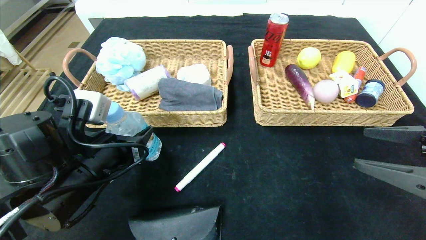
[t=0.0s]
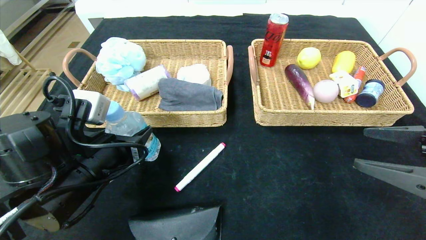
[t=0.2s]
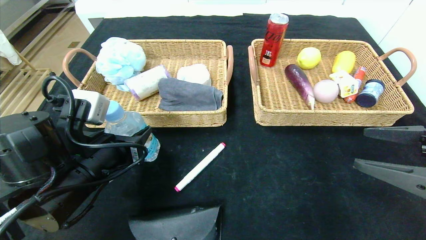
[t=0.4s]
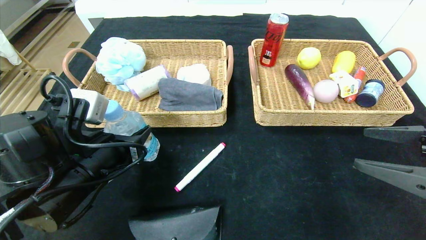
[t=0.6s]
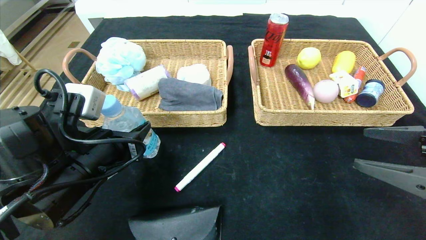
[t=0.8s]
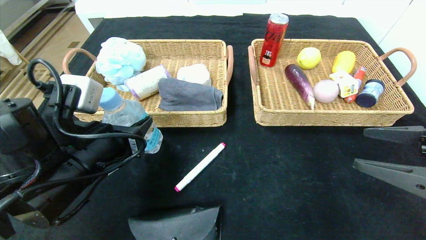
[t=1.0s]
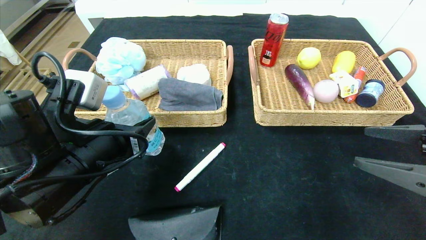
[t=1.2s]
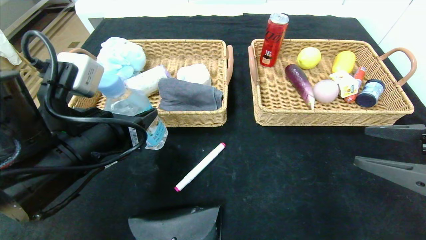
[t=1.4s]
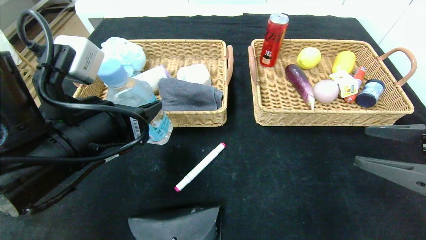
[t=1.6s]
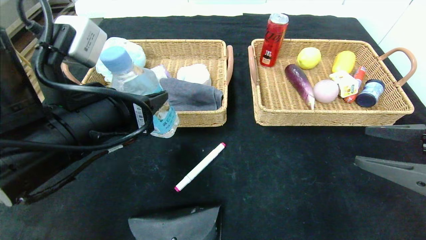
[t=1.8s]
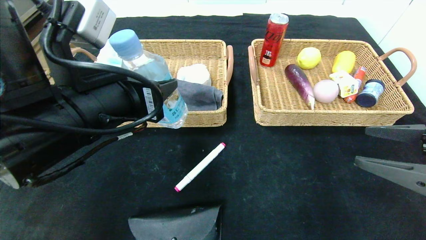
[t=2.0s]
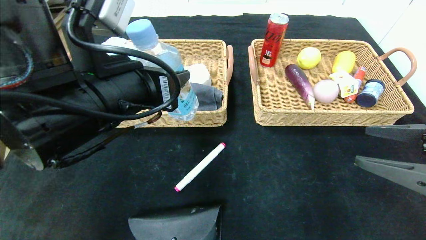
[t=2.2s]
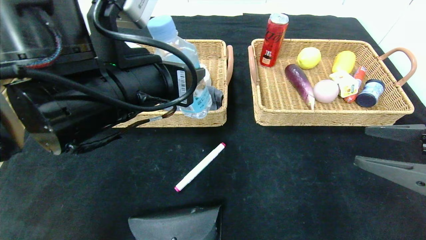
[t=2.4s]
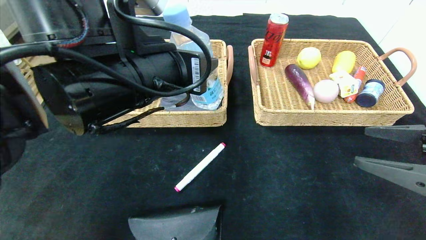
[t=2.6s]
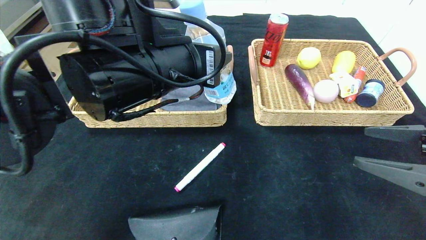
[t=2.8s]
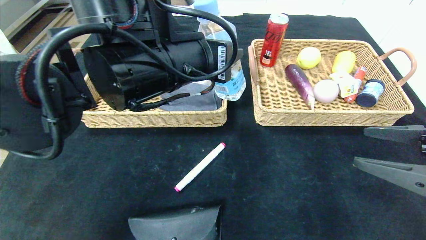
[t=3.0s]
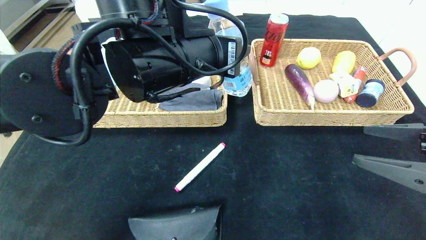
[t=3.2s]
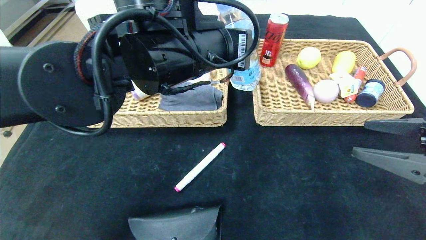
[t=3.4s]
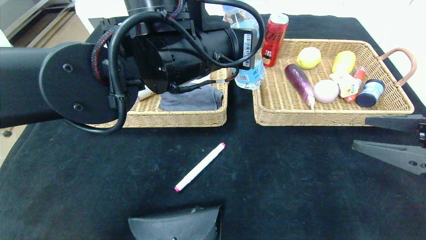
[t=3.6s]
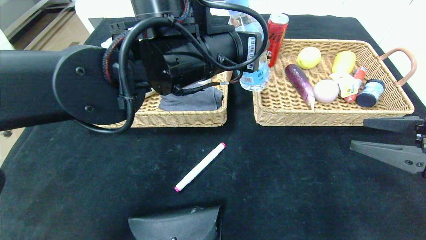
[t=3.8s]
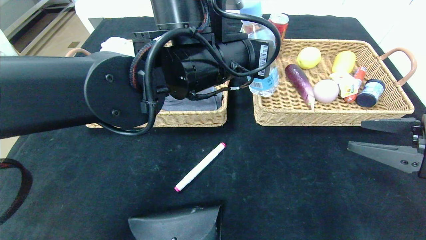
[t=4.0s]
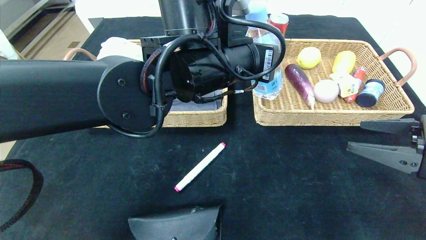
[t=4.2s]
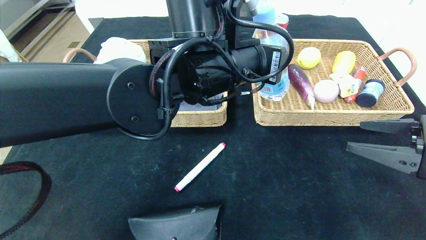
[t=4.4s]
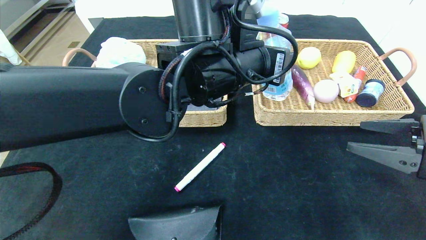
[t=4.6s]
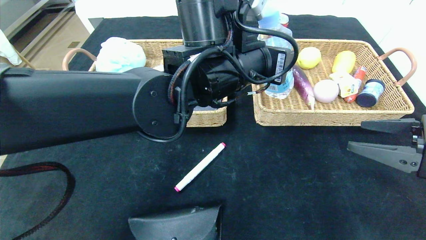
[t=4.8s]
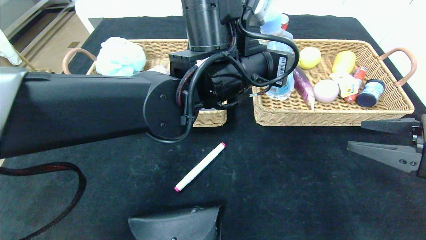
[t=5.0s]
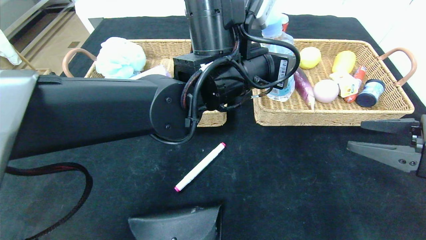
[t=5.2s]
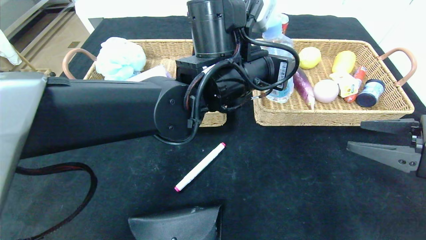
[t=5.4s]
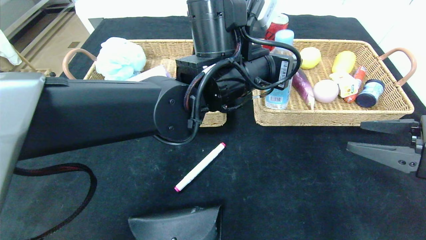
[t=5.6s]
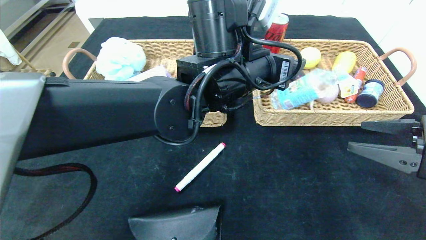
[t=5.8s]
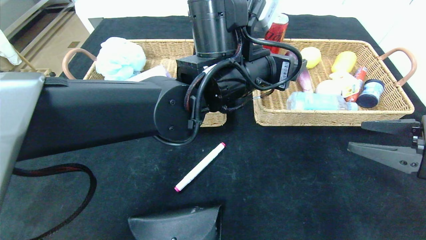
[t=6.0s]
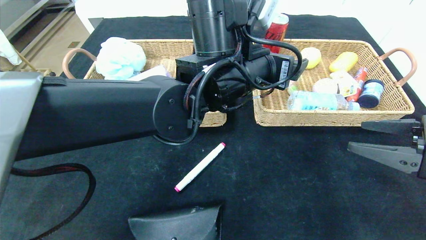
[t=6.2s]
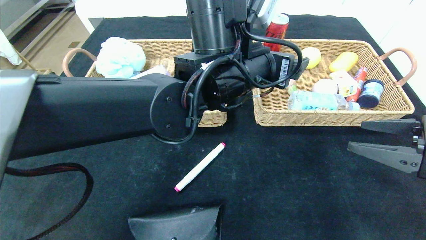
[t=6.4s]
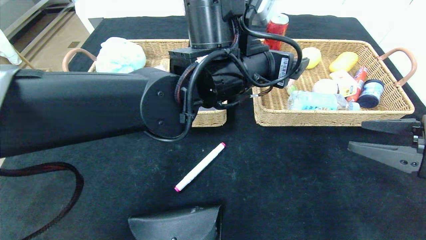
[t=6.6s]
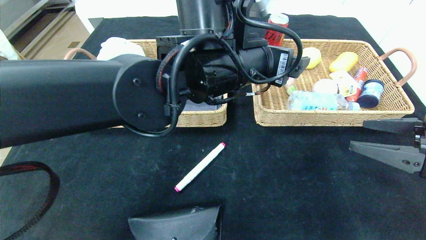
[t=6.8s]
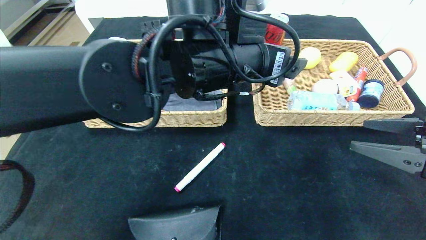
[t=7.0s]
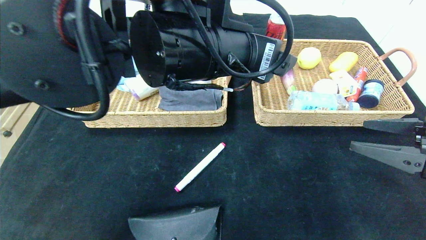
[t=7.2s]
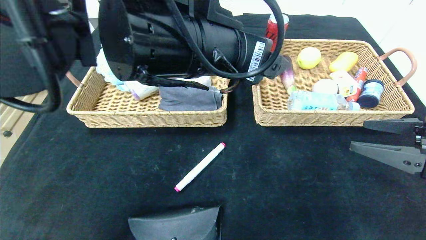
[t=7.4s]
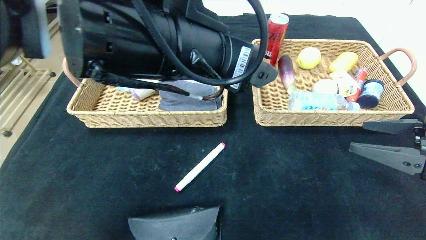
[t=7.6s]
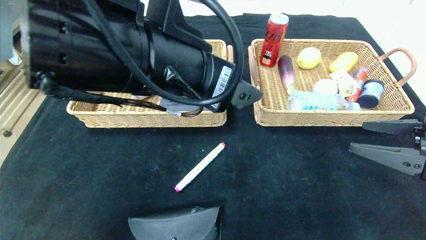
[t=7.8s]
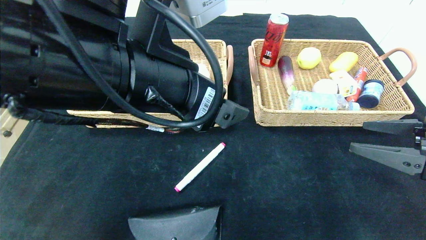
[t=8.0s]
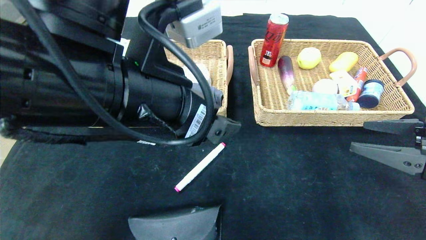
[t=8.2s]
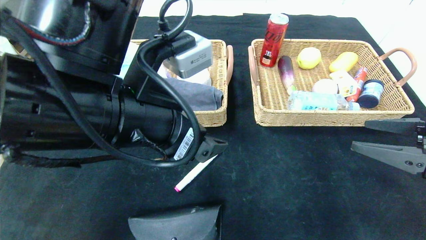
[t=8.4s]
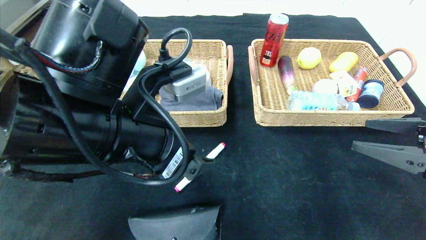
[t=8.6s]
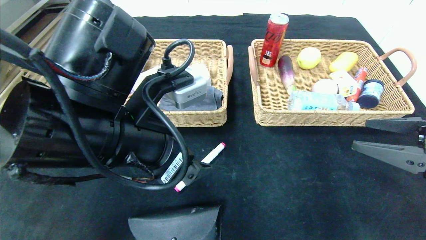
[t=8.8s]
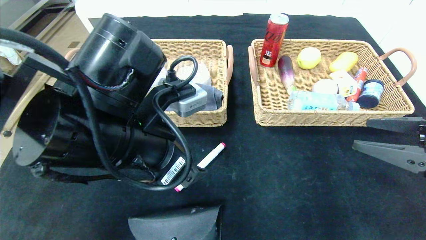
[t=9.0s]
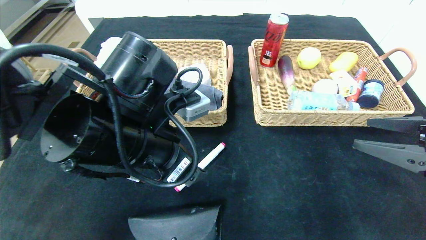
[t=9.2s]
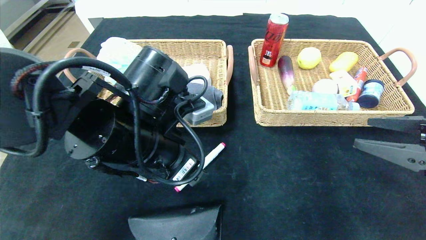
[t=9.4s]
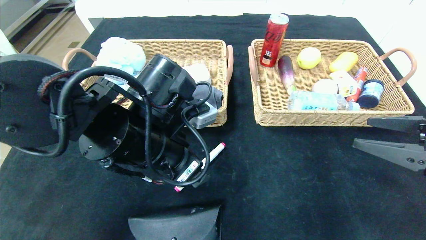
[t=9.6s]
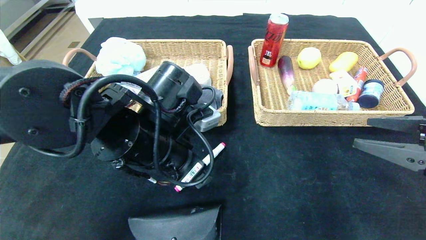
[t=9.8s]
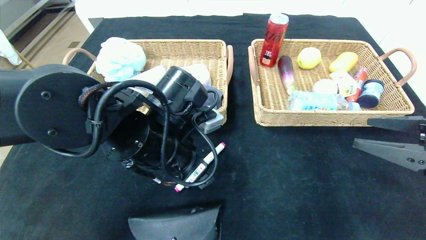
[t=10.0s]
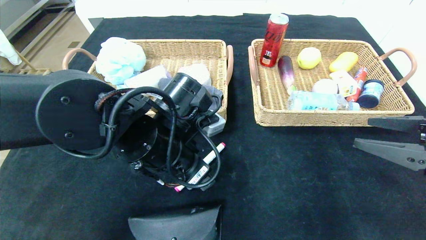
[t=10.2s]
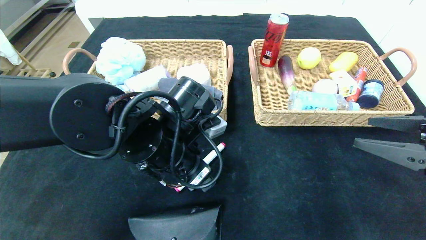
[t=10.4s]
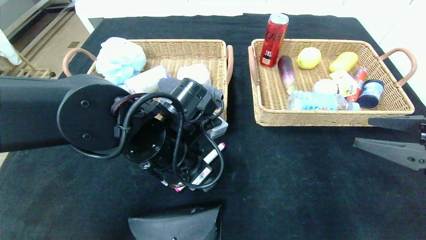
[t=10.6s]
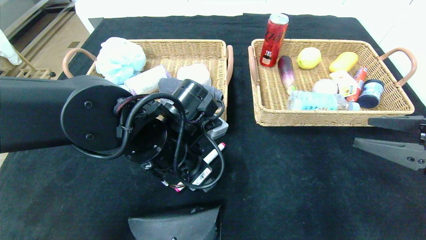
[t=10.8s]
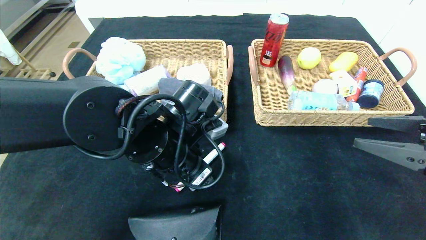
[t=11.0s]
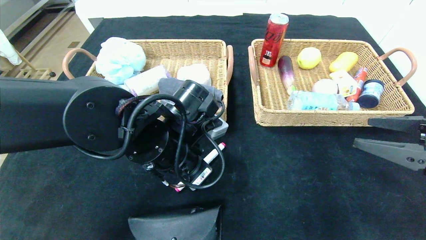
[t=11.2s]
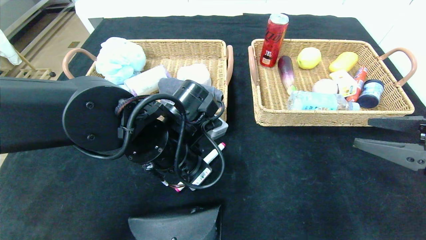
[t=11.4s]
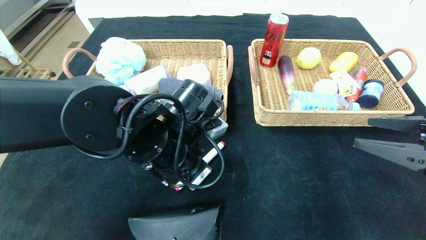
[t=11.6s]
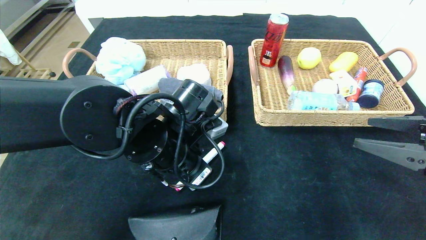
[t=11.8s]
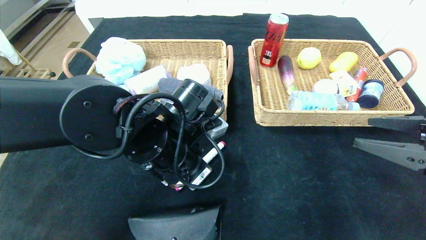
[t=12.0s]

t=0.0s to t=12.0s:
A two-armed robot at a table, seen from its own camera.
t=0.0s to t=1.6s: The left gripper moves upward, about 5 cm.
t=1.6s to t=3.0s: The left gripper shifts some 15 cm to the right, upward and forward.
t=3.0s to t=4.4s: The left gripper heads to the right, covering about 5 cm.
t=4.4s to t=6.0s: The left gripper opens.
t=6.0s to t=7.6s: The left gripper travels backward, to the left and upward by roughly 10 cm.
t=7.6s to t=9.0s: The left gripper heads downward and to the left, covering about 10 cm.
t=9.0s to t=10.4s: The left gripper goes some 5 cm downward.
t=10.4s to t=12.0s: The left gripper closes its fingers.

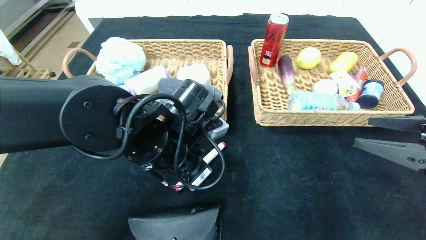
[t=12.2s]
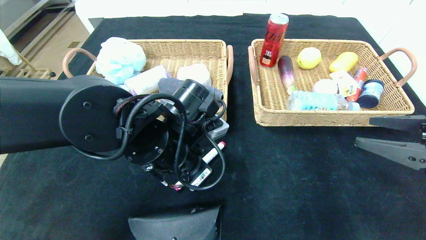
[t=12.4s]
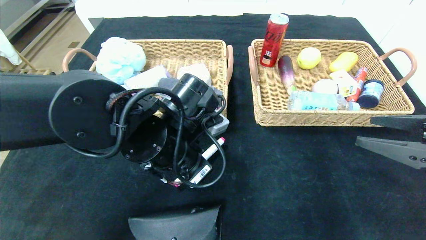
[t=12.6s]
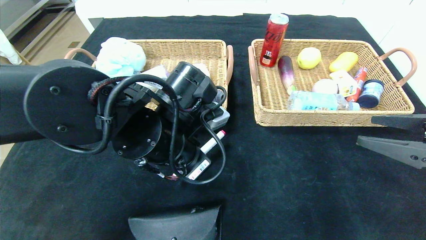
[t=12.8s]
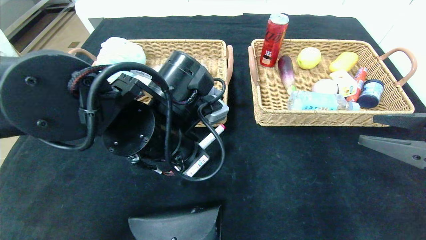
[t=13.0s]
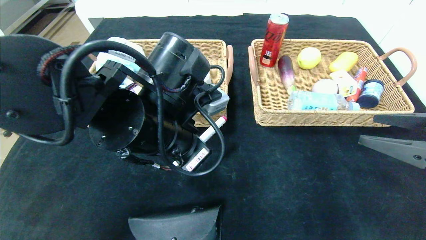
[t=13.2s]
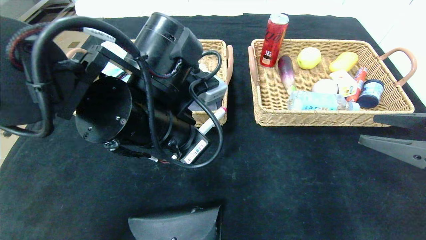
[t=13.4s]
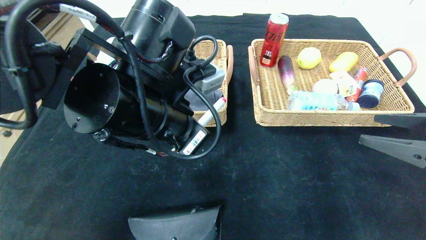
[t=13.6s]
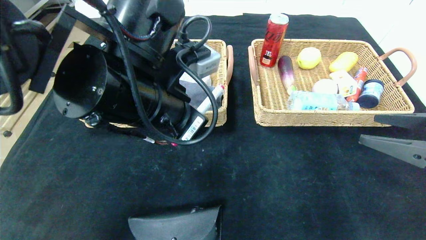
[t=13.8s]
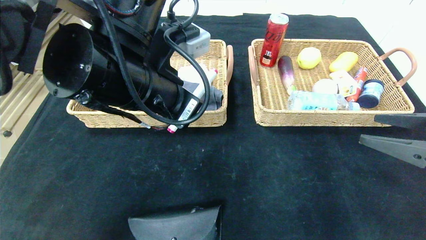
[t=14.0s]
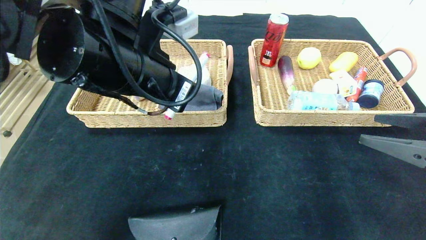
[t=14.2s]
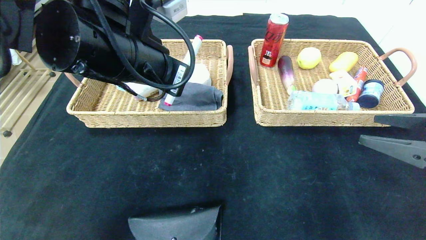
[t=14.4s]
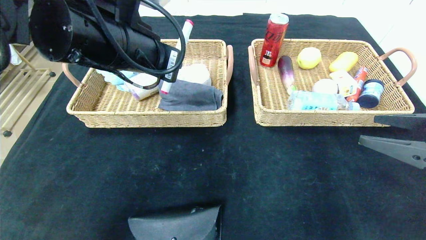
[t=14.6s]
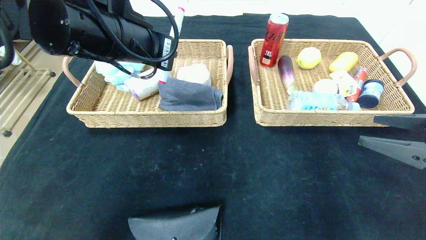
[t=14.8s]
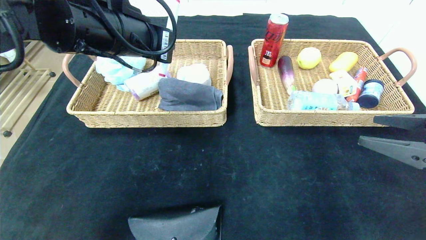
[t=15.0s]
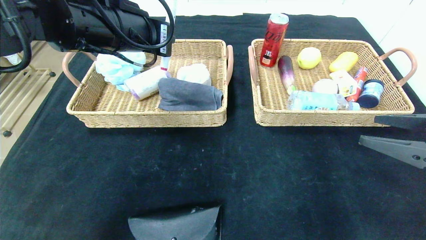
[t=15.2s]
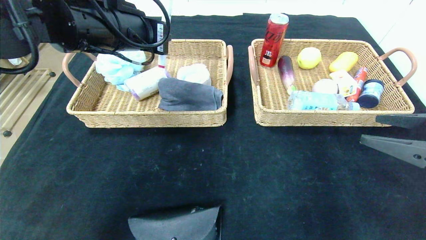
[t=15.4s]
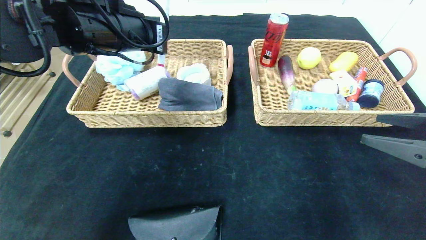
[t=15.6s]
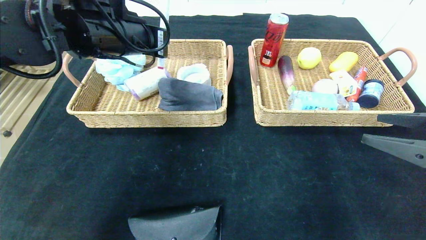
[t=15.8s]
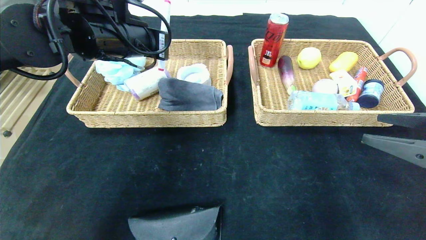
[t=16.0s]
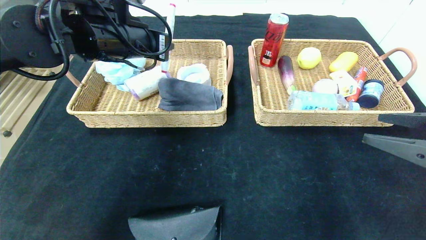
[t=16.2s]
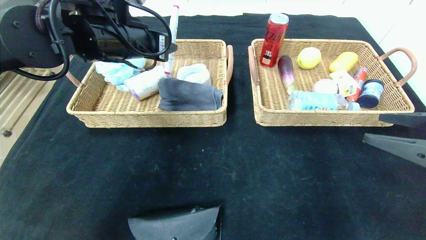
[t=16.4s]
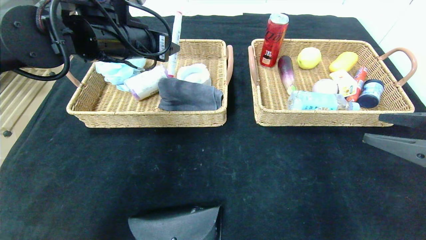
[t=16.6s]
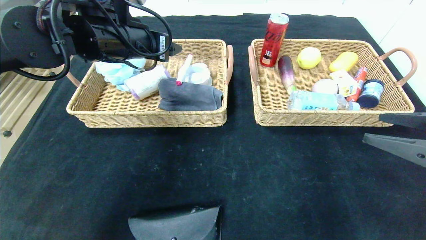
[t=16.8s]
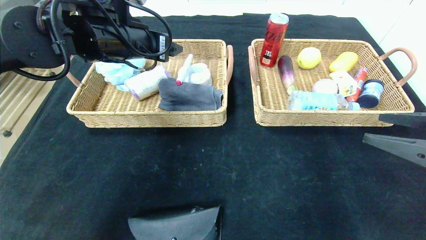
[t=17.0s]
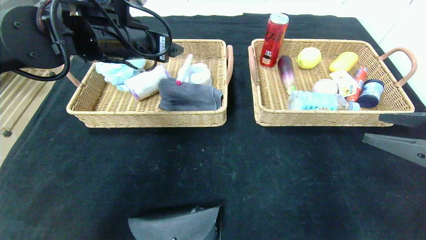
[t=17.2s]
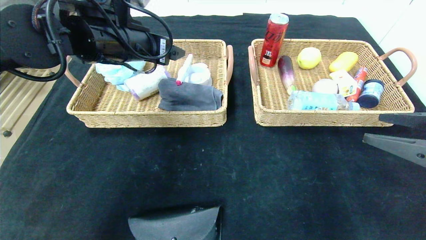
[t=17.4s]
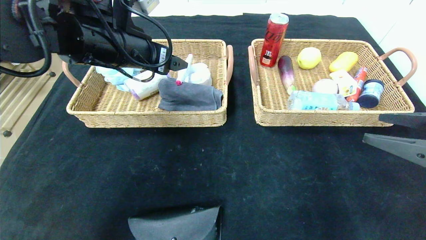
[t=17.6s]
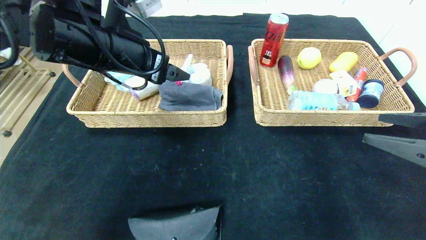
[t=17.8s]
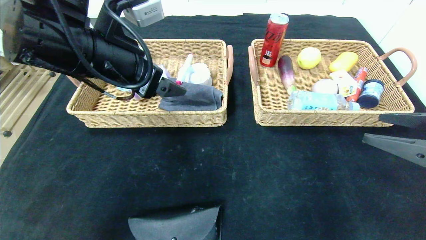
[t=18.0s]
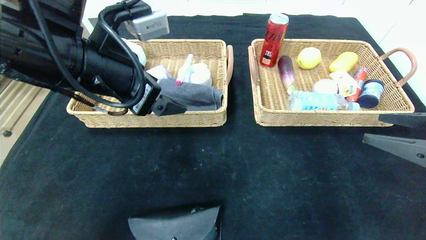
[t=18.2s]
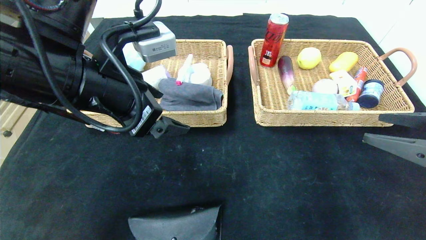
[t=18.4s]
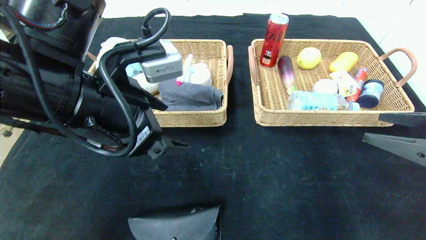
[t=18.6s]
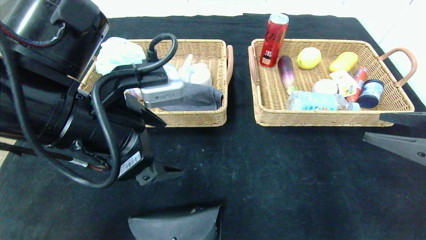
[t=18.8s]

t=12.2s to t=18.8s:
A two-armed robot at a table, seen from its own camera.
Step, t=12.2s to t=17.2s: Grasp the pink marker and put it in the left basket.
t=12.2s to t=13.8s: The left gripper is displaced upward by about 10 cm.
t=13.8s to t=15.4s: The left gripper shifts some 15 cm forward, to the left and upward.
t=15.4s to t=17.2s: The left gripper opens.
t=17.2s to t=18.8s: The left gripper moves backward, approximately 15 cm.
